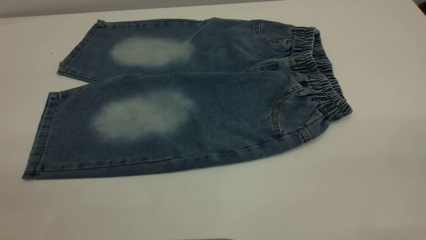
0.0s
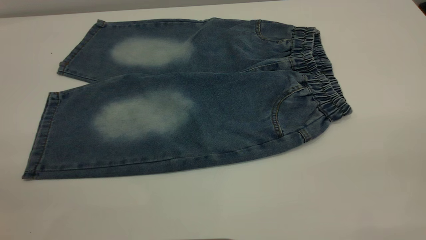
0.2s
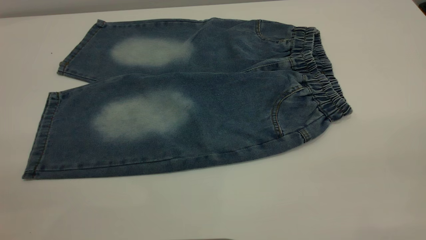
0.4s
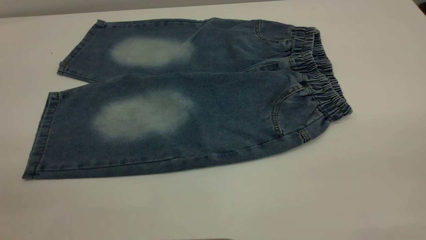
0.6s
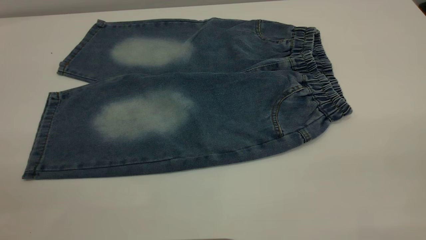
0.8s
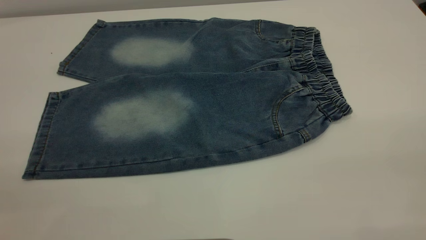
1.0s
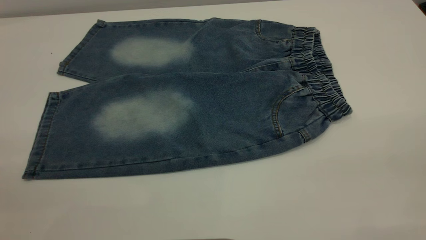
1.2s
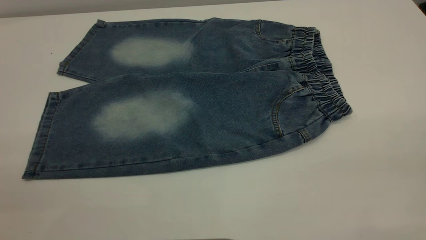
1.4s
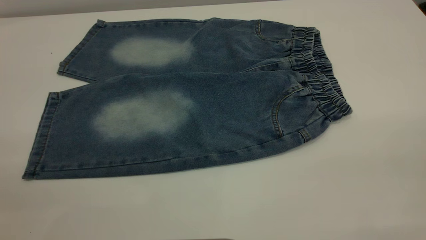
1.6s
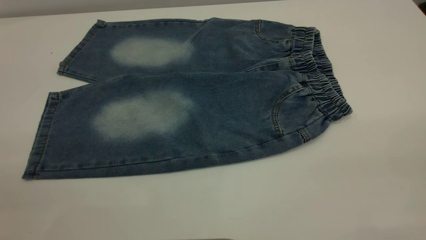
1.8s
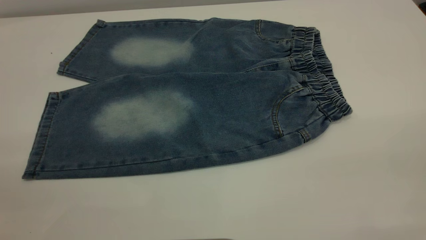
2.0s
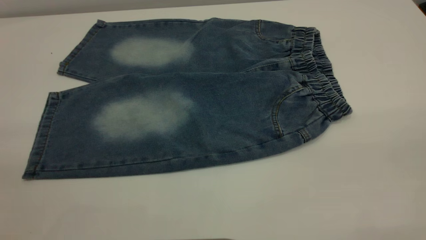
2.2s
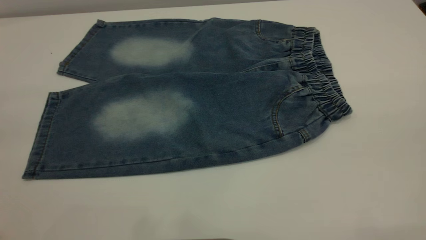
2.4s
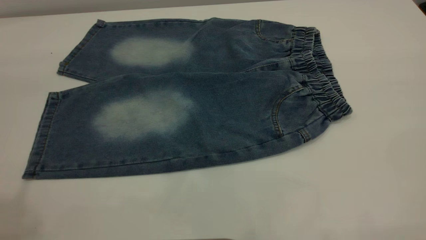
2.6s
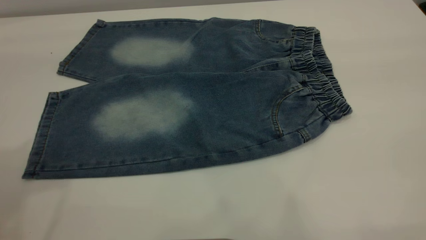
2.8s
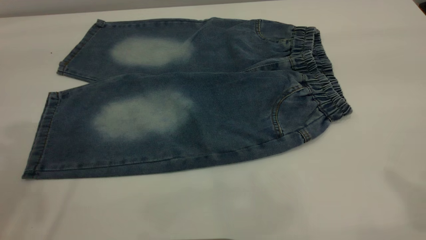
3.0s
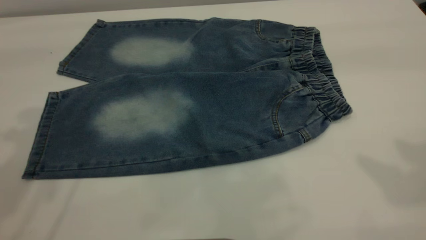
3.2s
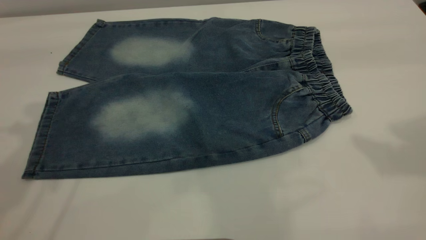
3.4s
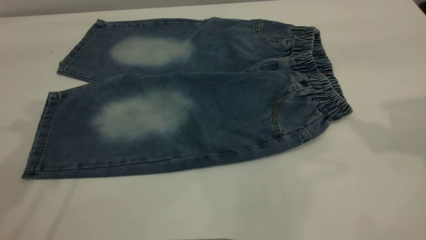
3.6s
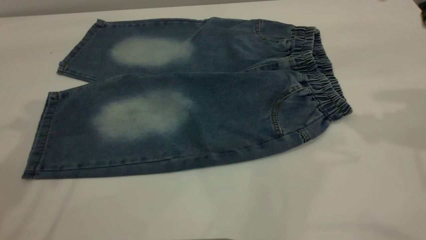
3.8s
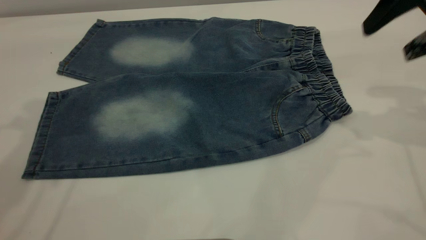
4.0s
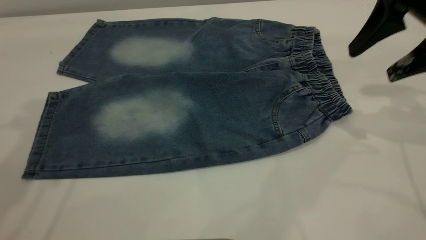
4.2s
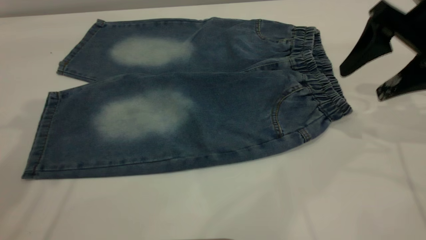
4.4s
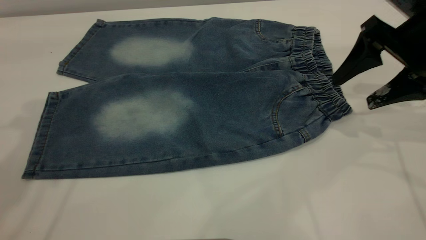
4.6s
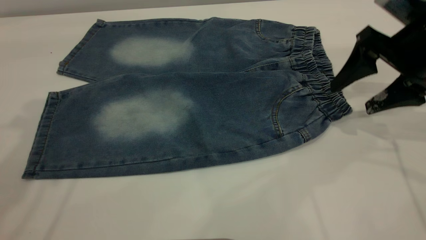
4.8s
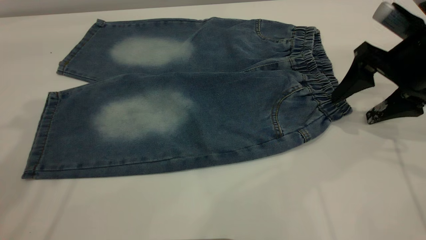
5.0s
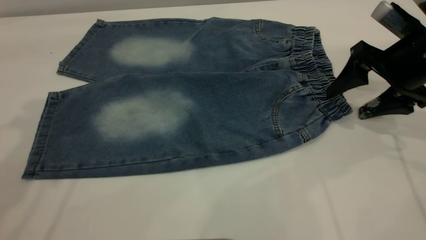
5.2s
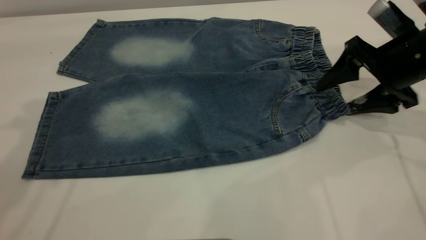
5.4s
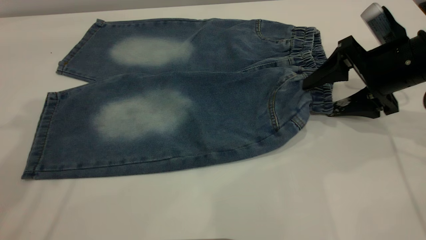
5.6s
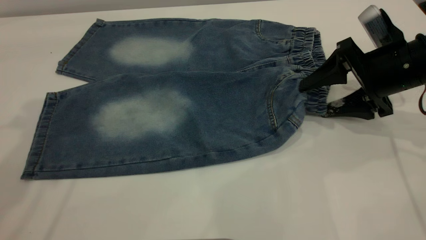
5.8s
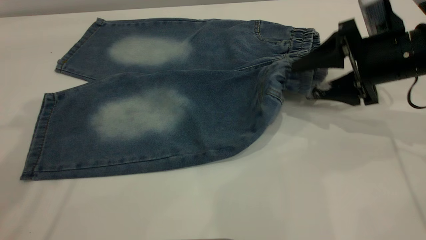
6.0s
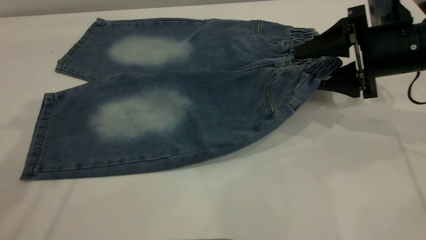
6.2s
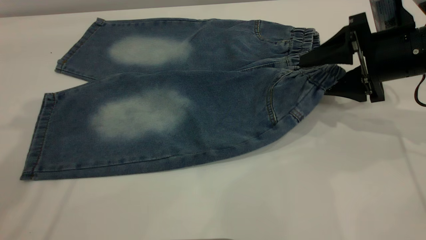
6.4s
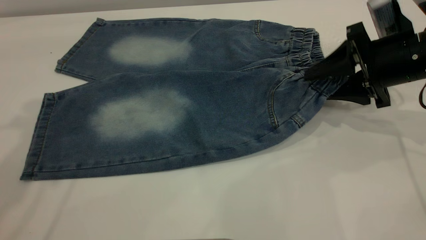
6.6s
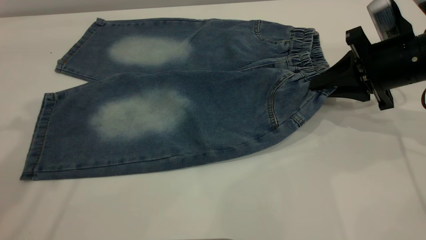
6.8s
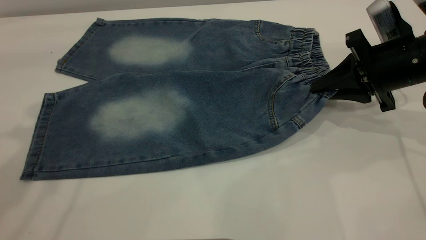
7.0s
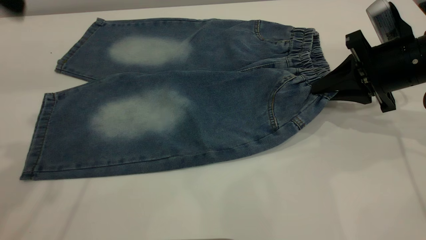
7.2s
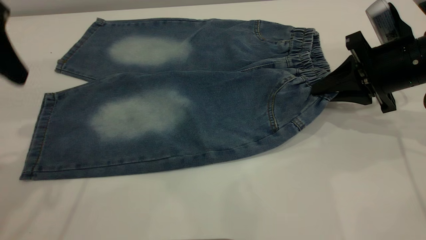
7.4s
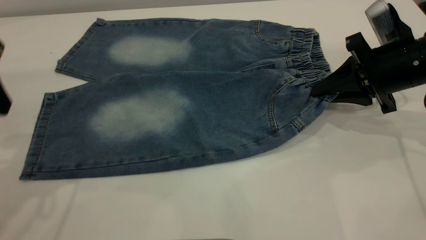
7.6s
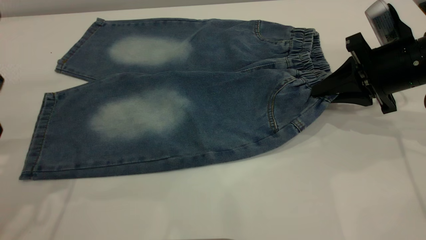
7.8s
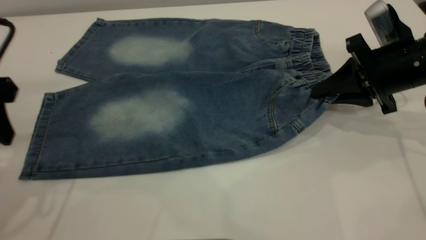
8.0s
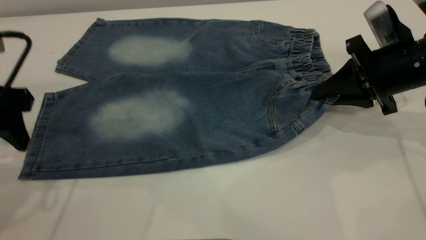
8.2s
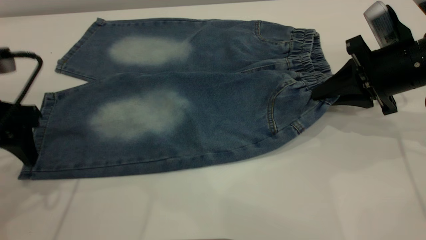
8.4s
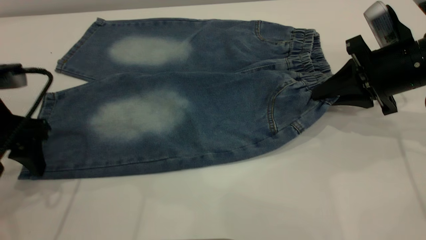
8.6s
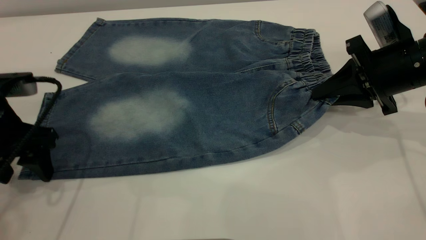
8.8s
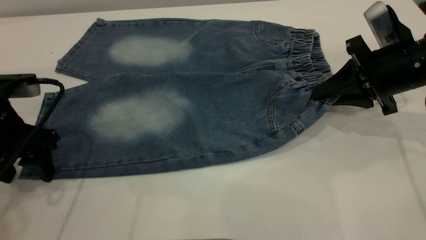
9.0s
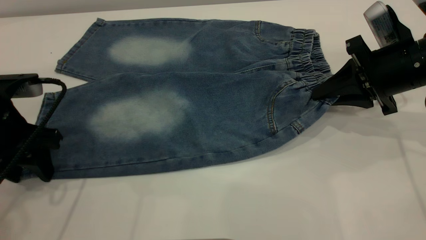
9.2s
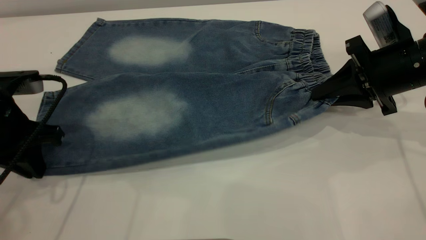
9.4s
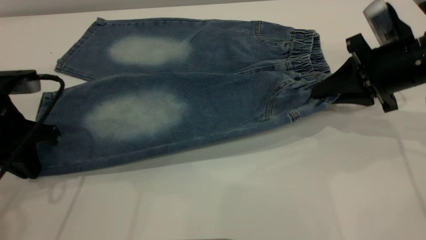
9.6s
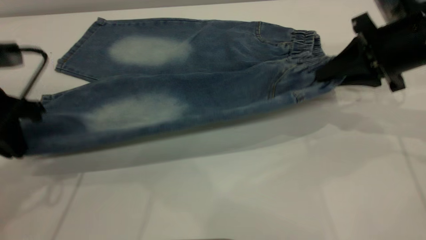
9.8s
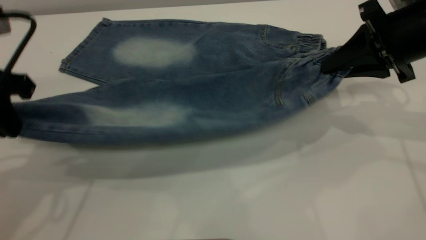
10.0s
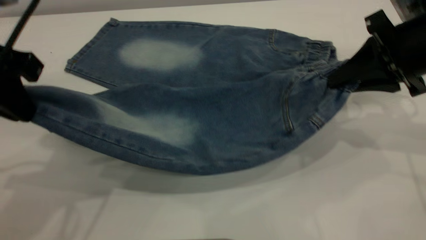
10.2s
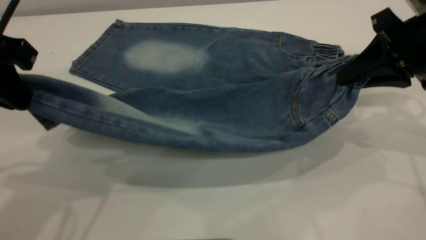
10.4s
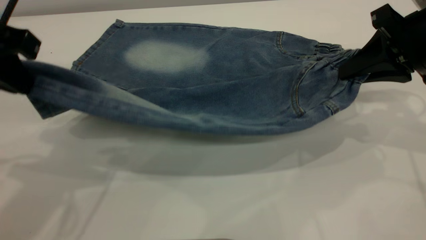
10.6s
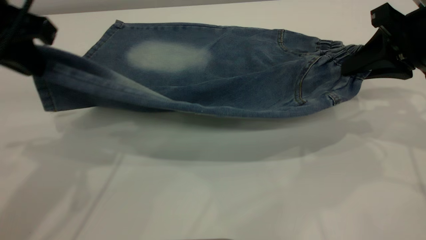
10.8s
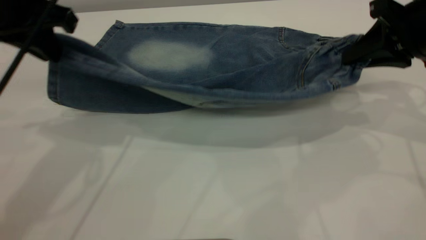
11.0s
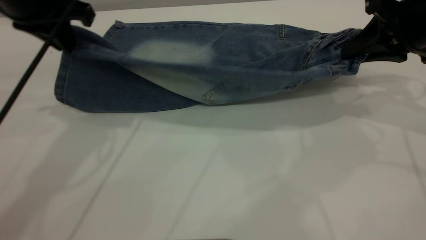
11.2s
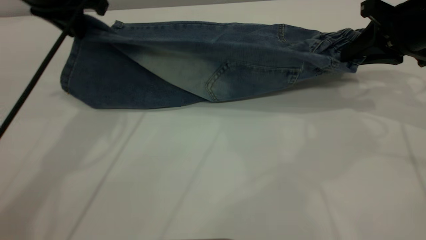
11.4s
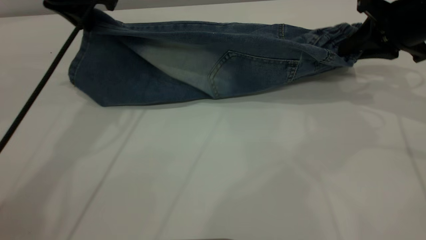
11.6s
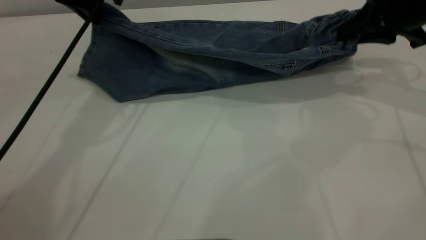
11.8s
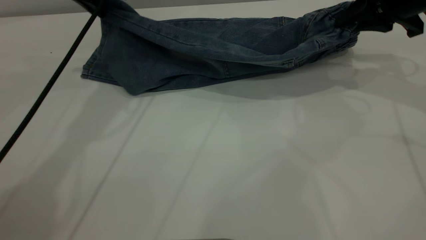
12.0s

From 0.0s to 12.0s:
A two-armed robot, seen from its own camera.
From 0.0s to 1.6s: Both grippers stay put.
From 3.0s to 4.4s: The right gripper heads downward and forward, covering roughly 30 cm.
From 4.4s to 6.0s: The right gripper goes roughly 5 cm downward.
From 6.0s to 7.6s: The left gripper shifts roughly 15 cm downward and backward. The right gripper closes its fingers.
From 7.6s to 9.0s: The left gripper goes about 10 cm downward.
From 9.0s to 10.4s: The left gripper moves upward, roughly 15 cm, and closes its fingers. The right gripper travels upward by some 5 cm.
From 10.4s to 12.0s: The right gripper moves forward, about 10 cm, while the left gripper moves forward, some 20 cm.

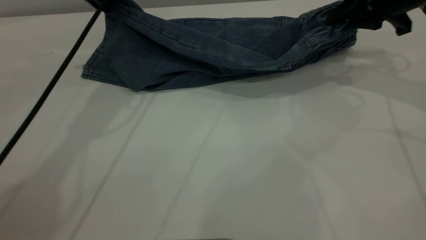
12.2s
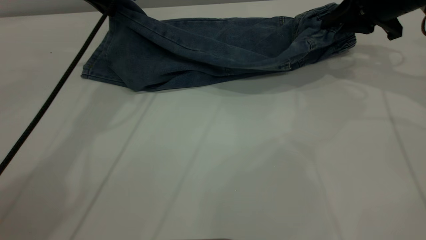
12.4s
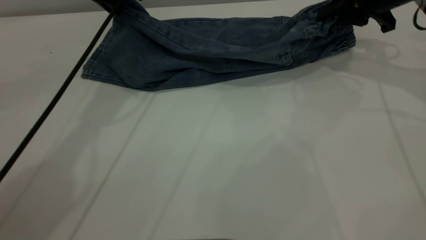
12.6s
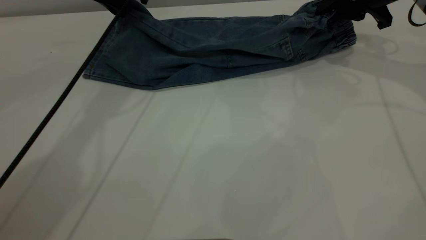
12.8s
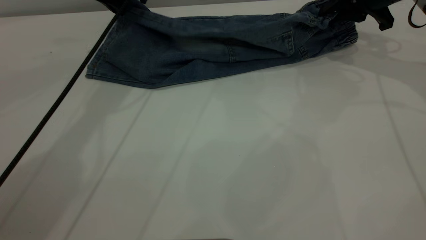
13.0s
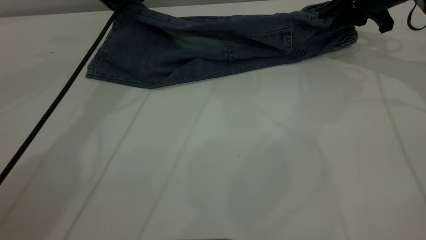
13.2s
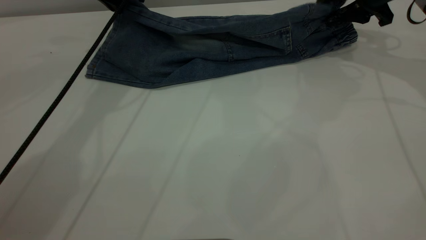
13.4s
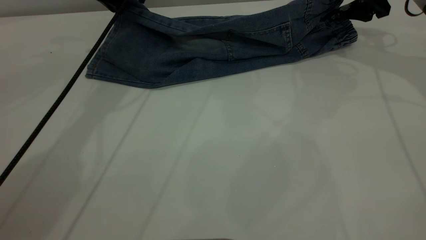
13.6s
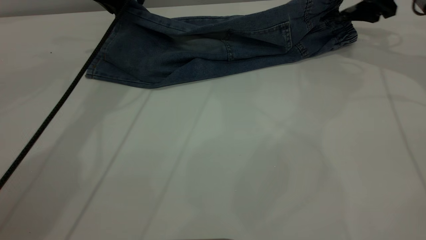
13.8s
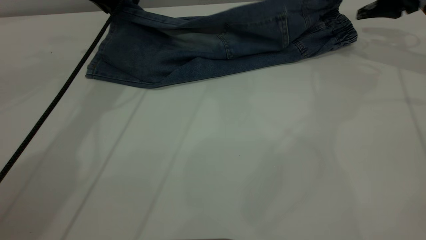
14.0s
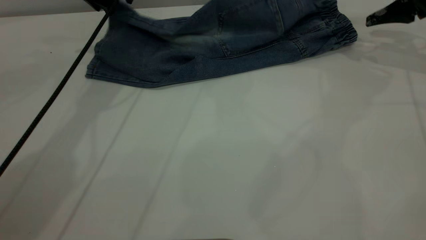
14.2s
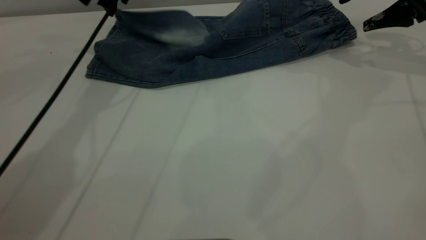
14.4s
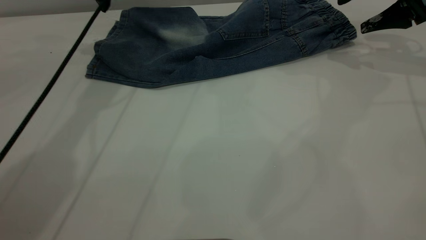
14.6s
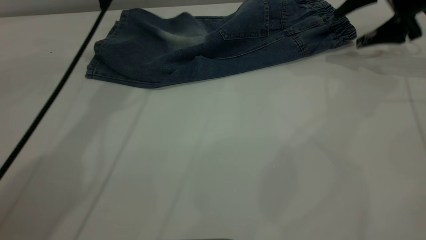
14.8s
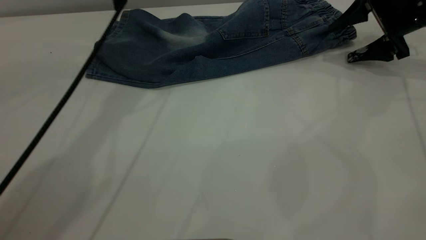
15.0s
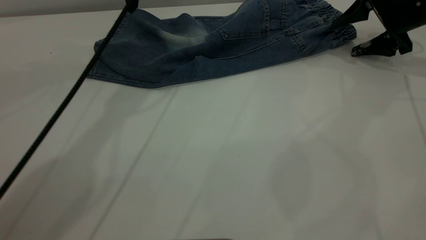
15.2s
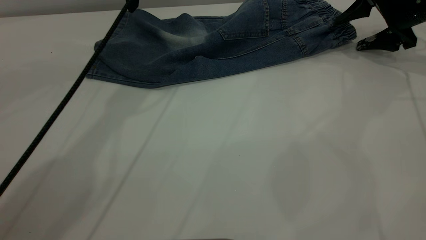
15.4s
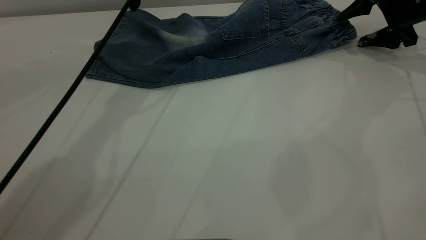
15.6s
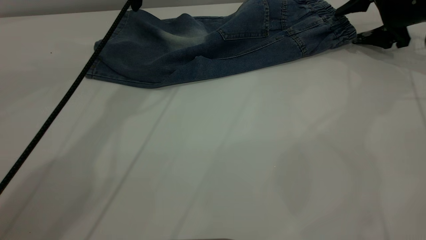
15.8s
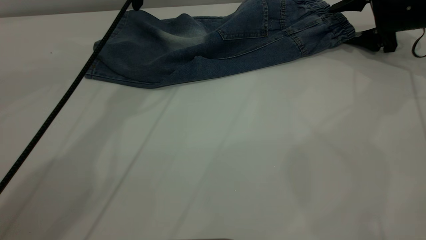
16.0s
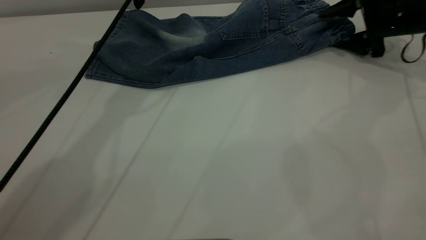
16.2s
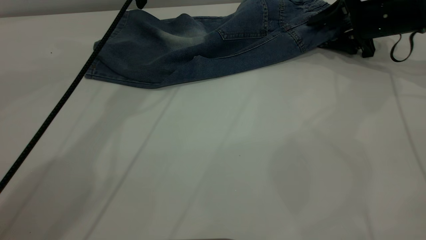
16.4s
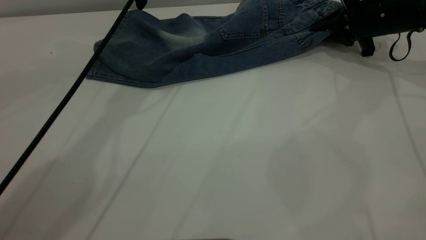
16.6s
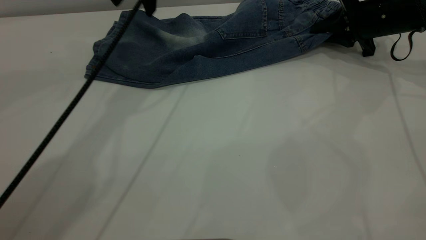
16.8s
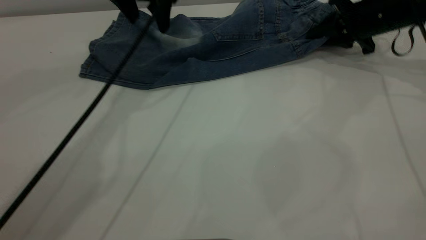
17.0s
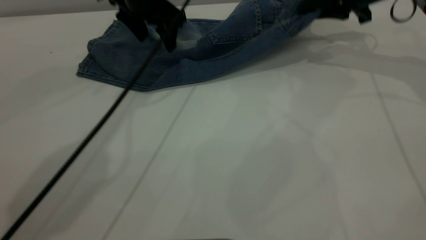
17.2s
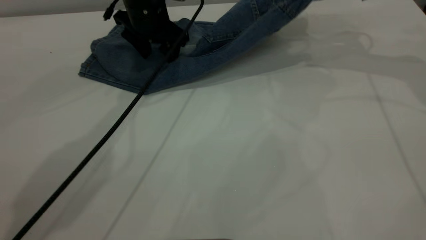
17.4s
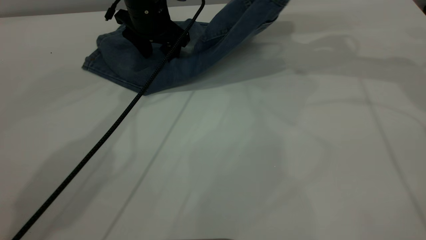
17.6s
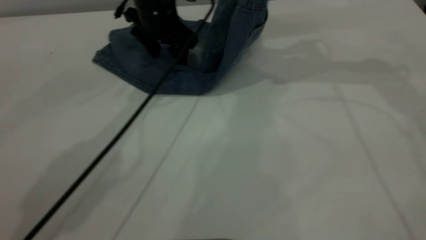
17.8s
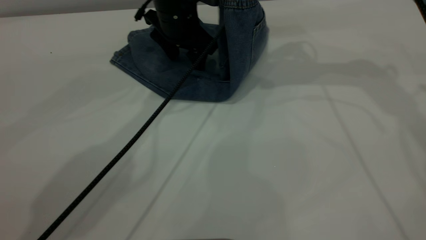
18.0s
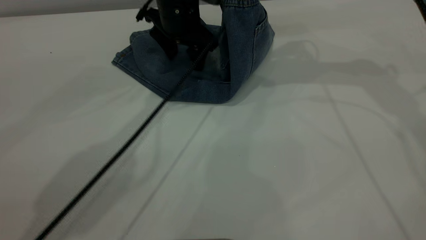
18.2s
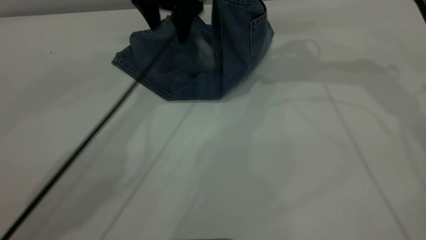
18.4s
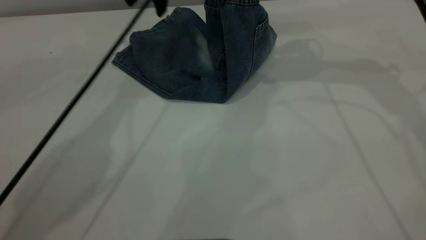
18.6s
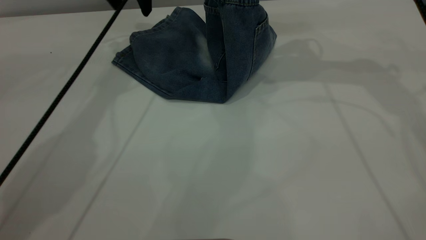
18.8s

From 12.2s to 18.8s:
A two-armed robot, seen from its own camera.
Step, from 12.2s to 14.6s: Fold the bottom of the pants upward.
From 12.2s to 13.8s: Both grippers travel together forward, some 5 cm. The right gripper opens its fingers.
From 13.8s to 15.4s: The right gripper is displaced downward by some 5 cm. Meanwhile the left gripper travels upward by about 5 cm, and opens.
From 15.4s to 17.2s: The right gripper goes roughly 10 cm to the left and upward, and closes up, while the left gripper shifts some 10 cm downward.
From 17.2s to 18.8s: The right gripper goes some 10 cm to the left and upward. The left gripper shifts roughly 5 cm upward.
